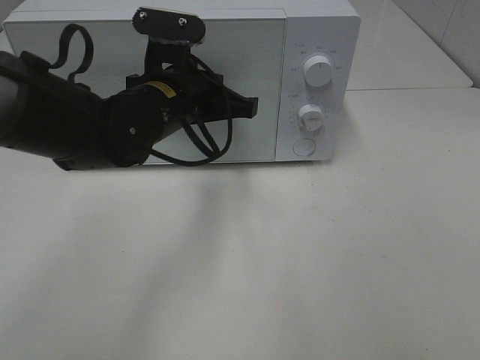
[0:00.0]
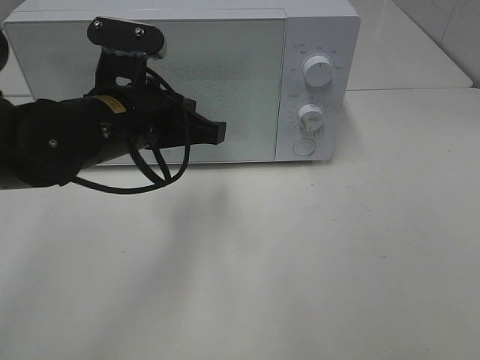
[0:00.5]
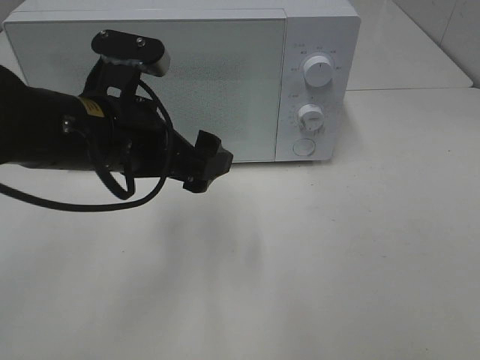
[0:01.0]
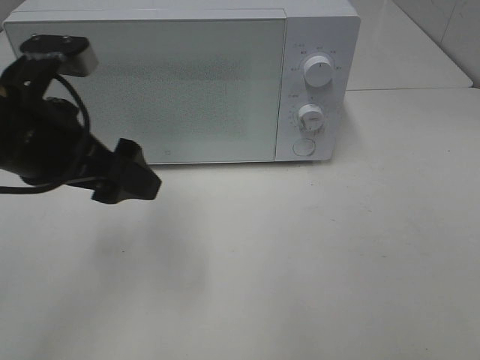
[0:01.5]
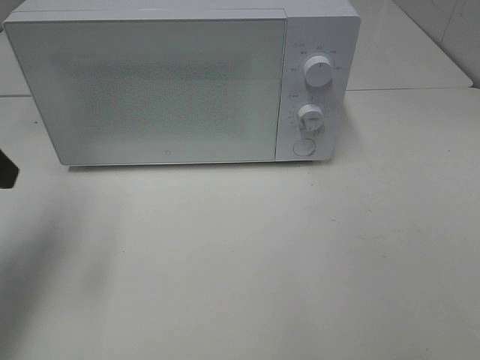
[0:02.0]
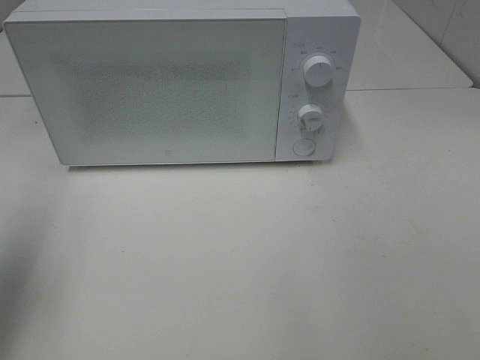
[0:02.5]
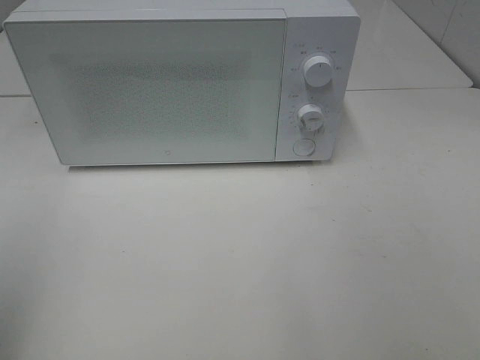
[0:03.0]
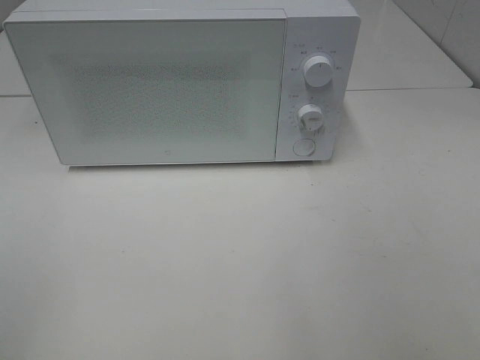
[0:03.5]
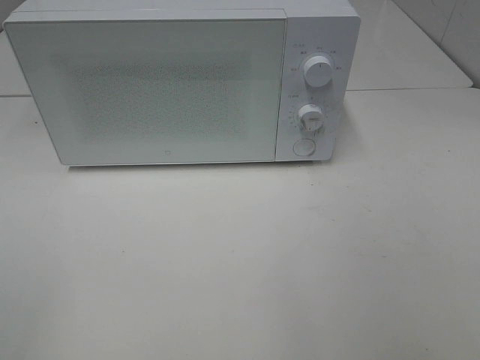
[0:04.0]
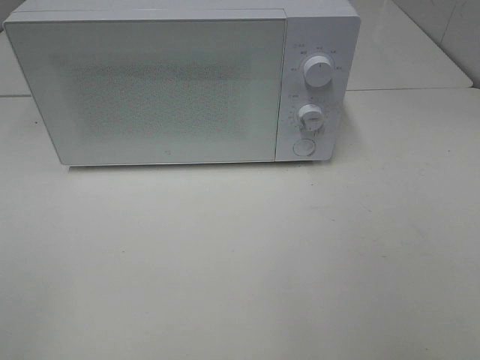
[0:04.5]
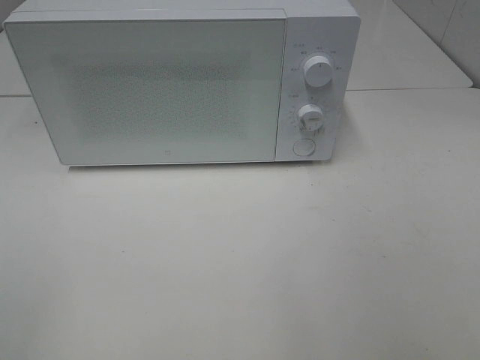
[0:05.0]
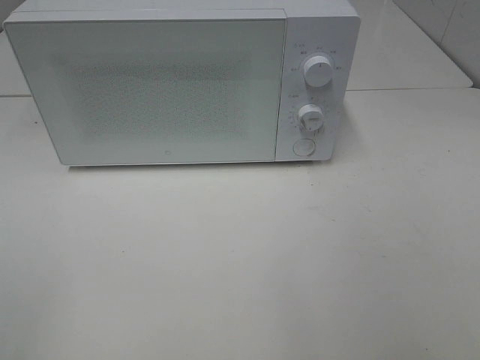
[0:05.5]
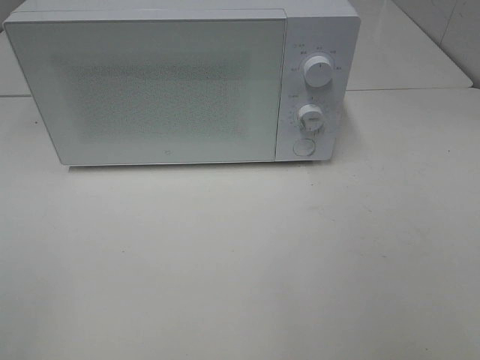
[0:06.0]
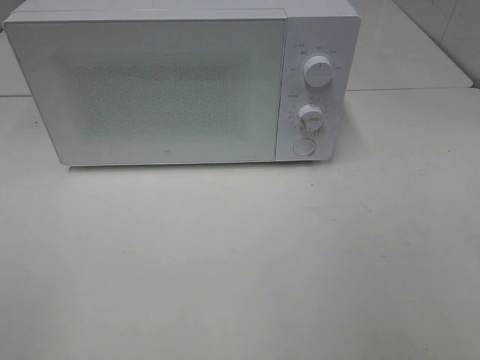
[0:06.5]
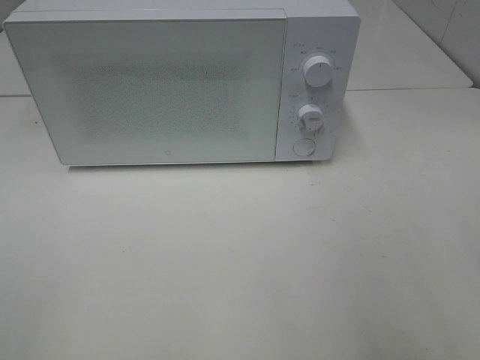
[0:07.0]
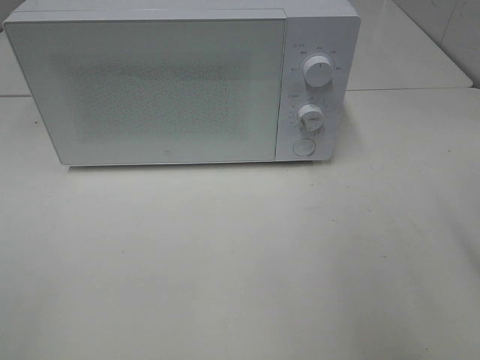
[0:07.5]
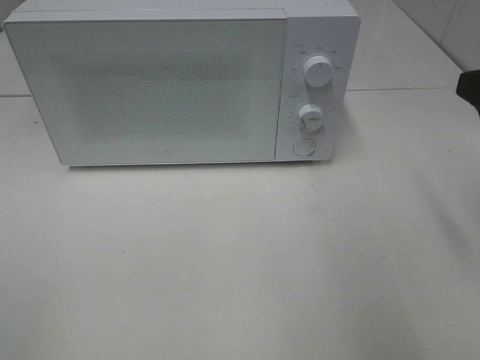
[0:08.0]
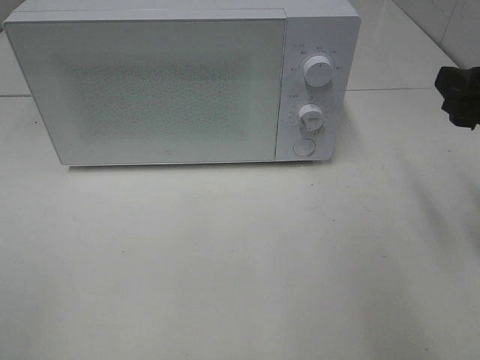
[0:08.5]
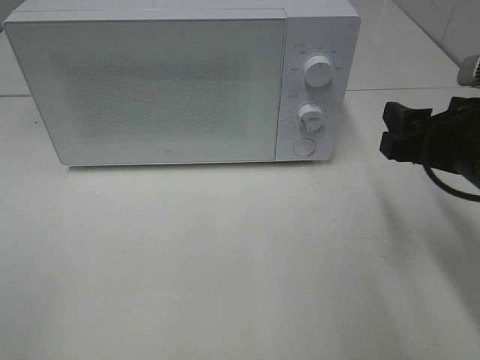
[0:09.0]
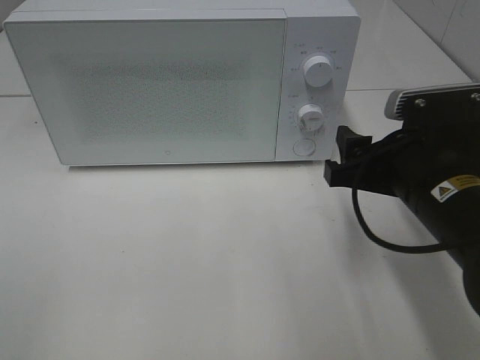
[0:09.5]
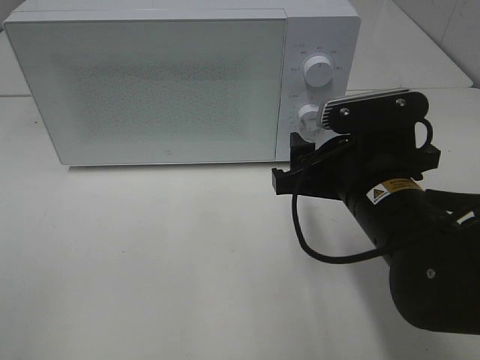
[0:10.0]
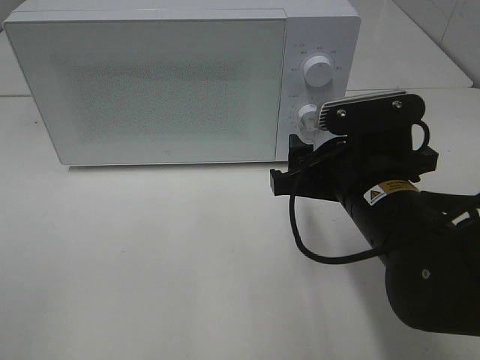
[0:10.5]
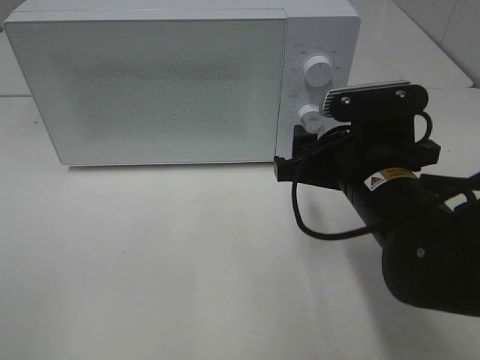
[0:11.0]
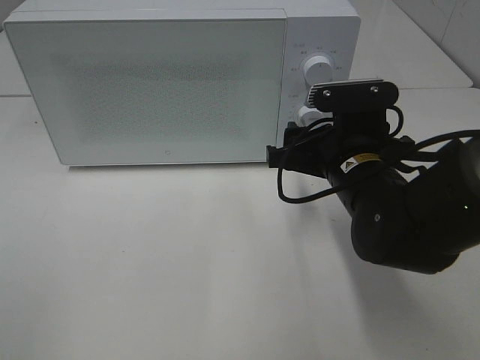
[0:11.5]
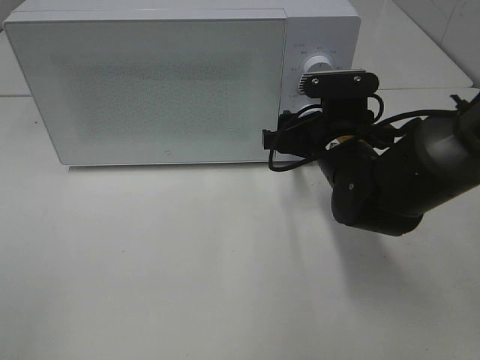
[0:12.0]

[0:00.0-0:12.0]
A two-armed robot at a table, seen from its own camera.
Task of the whole recording: Heat Sandwich.
0:00.0 to 0:02.0: The left gripper travels to the left and backward by approximately 25 cm, and opens its fingers.
0:02.0 to 0:04.0: The left gripper shifts roughly 25 cm backward.
0:04.0 to 0:06.0: The two grippers keep their place.
0:08.0 to 0:10.0: The right gripper is displaced to the left and downward by about 20 cm.
0:10.0 to 0:12.0: The right gripper heads forward, covering roughly 10 cm.

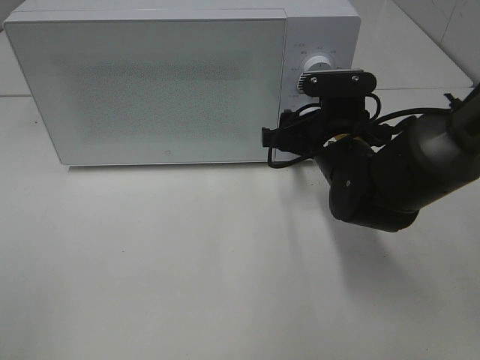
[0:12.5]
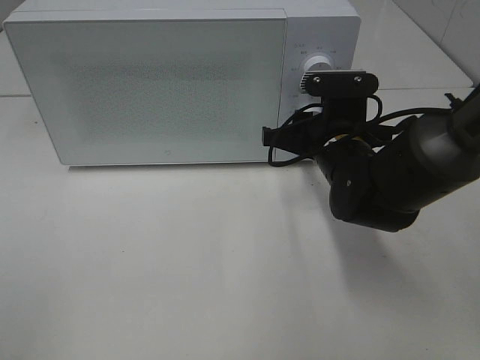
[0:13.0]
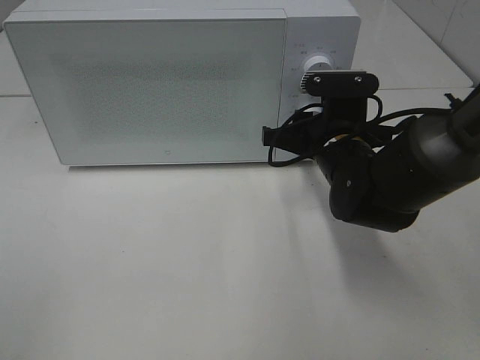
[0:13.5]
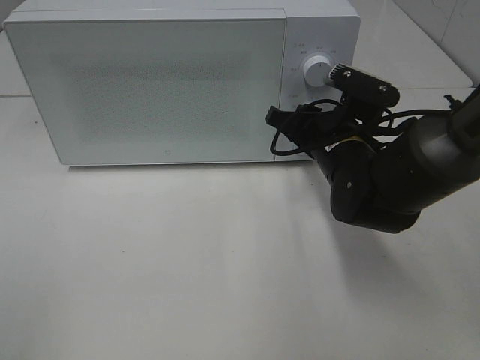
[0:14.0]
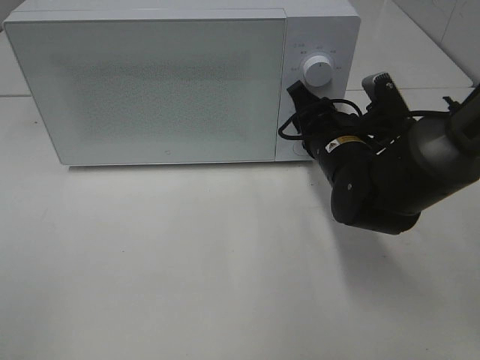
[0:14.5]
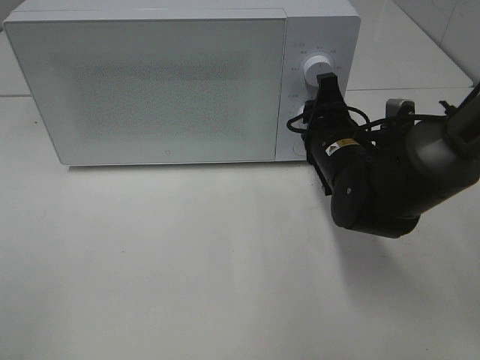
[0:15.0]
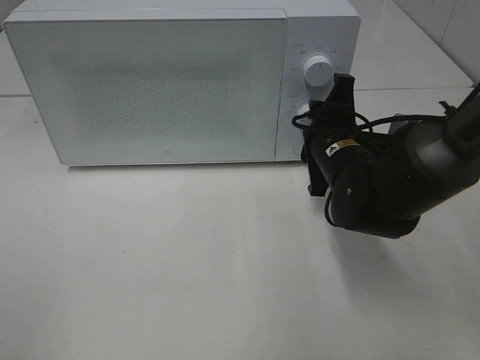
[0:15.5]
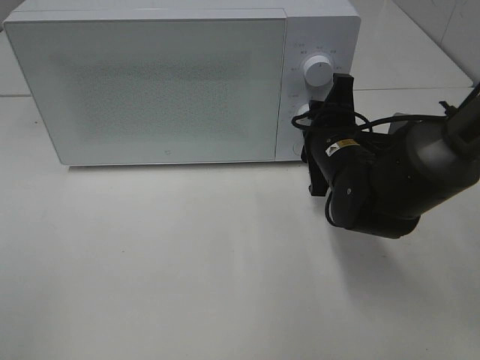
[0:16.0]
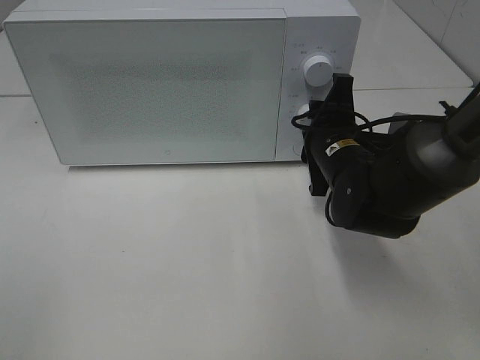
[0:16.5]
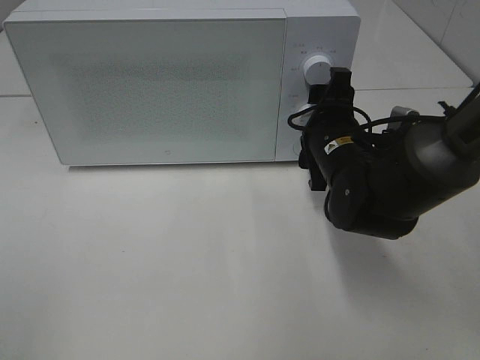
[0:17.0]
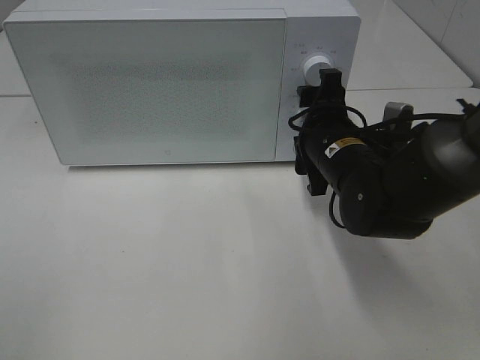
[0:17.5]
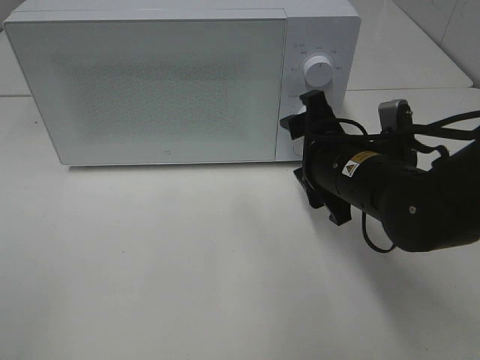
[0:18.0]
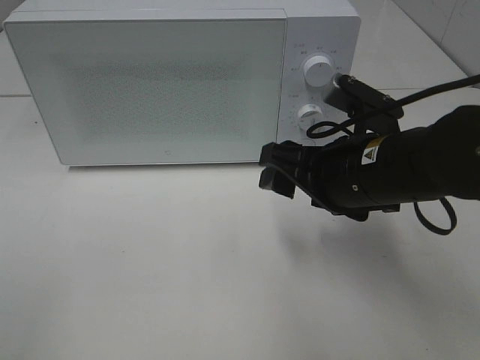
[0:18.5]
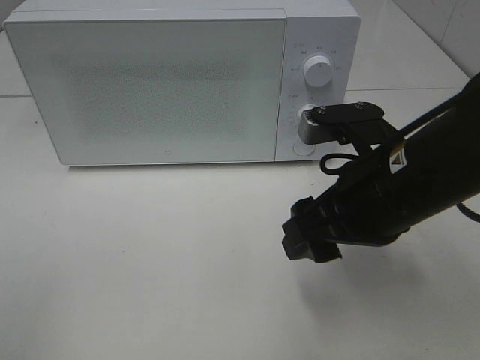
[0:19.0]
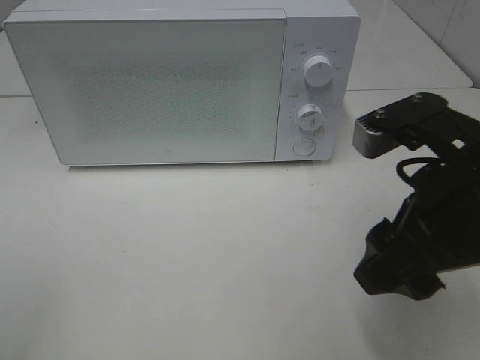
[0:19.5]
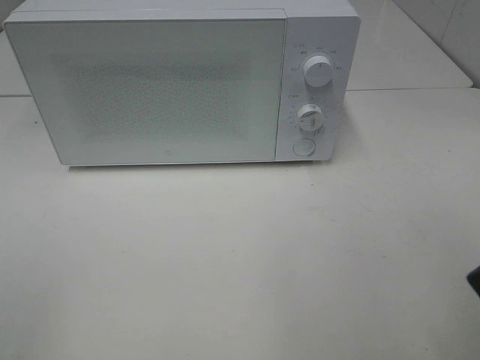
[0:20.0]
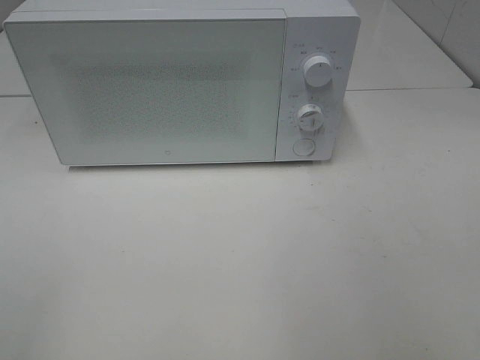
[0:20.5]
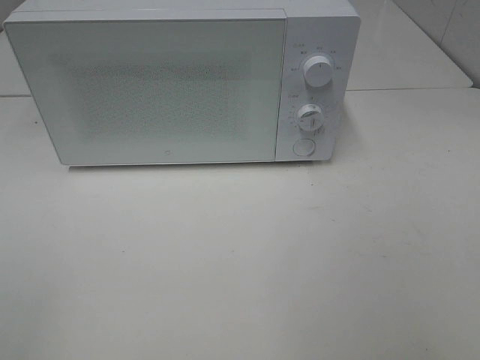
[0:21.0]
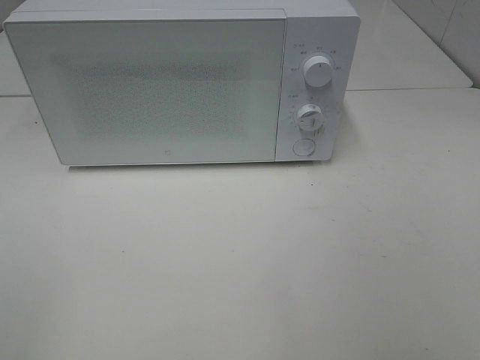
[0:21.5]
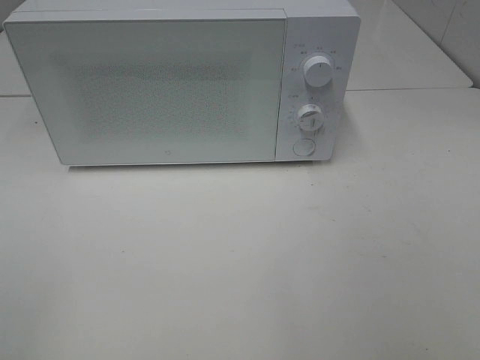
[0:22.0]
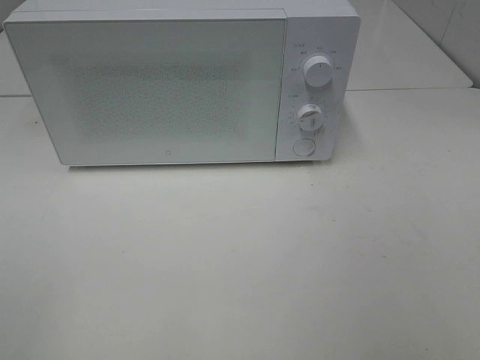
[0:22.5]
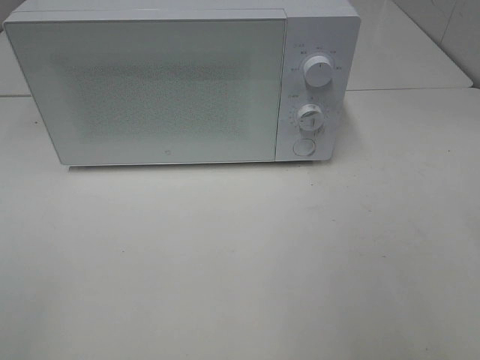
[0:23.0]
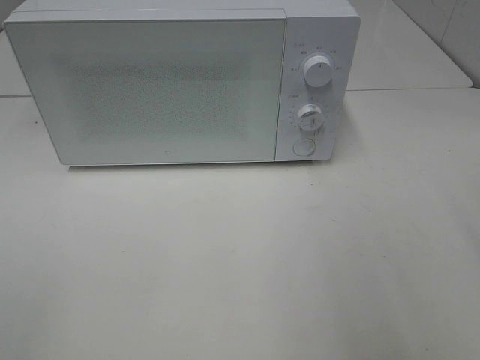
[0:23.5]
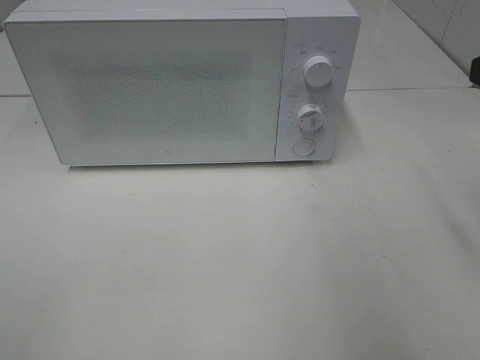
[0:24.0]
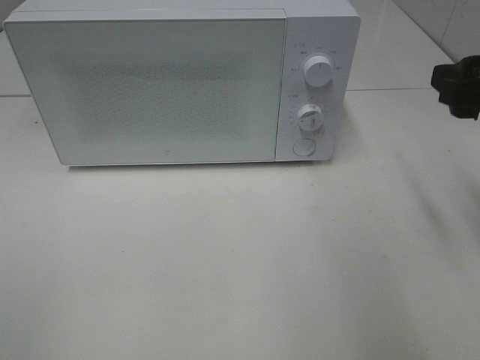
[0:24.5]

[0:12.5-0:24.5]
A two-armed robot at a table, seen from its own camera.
Task of the whole recording: Heat Sandwich.
Step, 0:12.5 to 0:17.5: Right hand: twist timer button.
0:16.5 to 0:18.5: The right gripper is displaced backward and upward by approximately 10 cm.
0:18.5 to 0:20.5: The right gripper travels backward, upward and to the right by about 30 cm.
0:22.5 to 0:24.5: The right gripper goes approximately 20 cm forward.

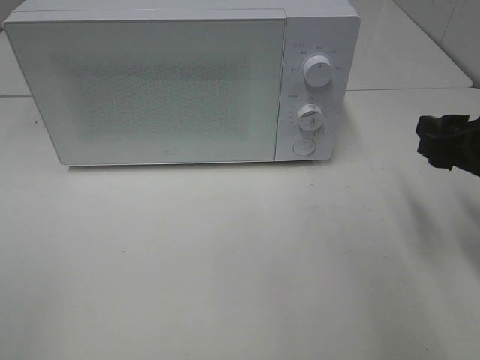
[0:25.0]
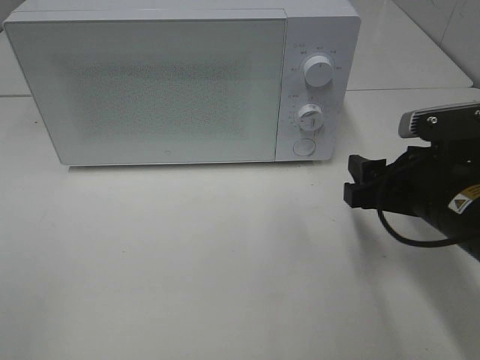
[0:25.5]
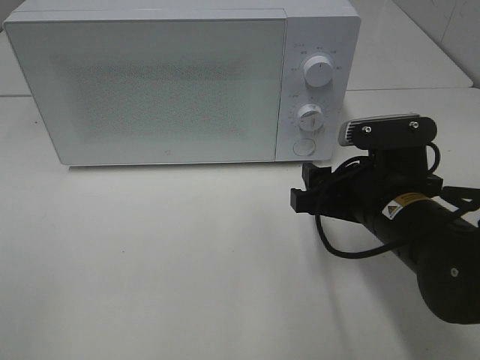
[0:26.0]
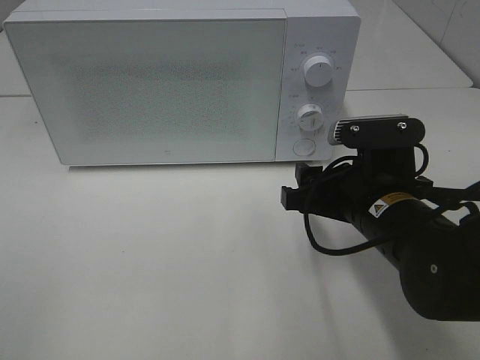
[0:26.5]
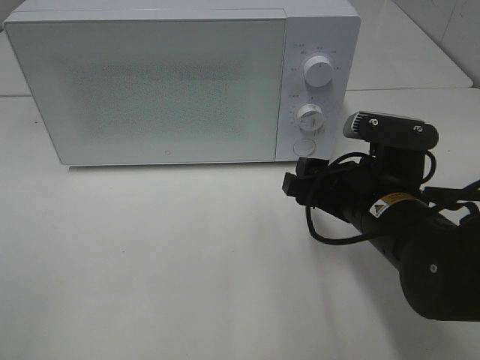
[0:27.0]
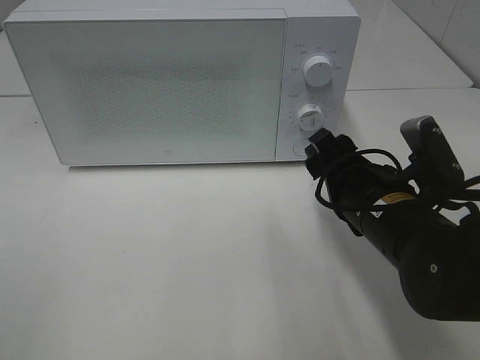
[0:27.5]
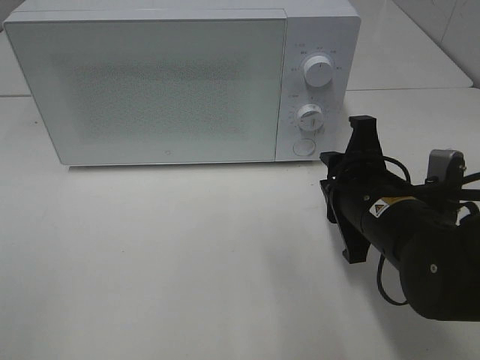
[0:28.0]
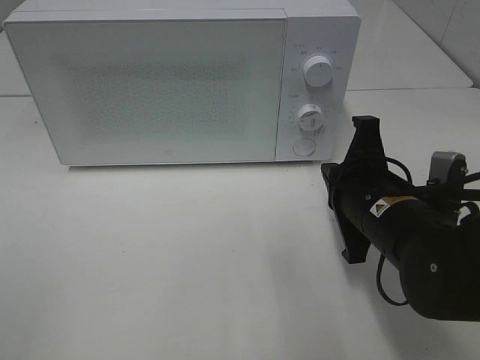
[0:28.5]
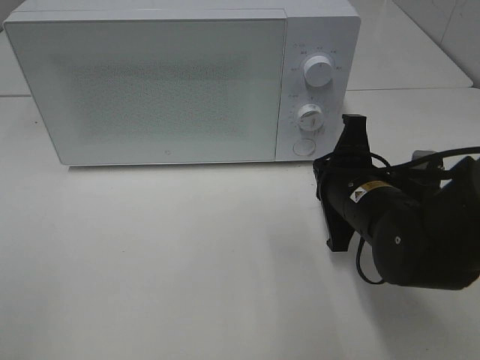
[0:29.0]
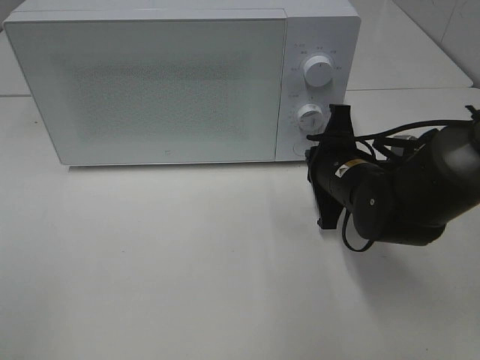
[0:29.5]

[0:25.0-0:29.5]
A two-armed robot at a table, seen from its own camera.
Task of the whole recording: Heat Sandwich.
0:25.0 to 0:27.0: The right gripper heads to the left and downward, covering roughly 15 cm.
0:27.0 to 0:29.5: The right gripper travels forward by about 10 cm, and closes.
